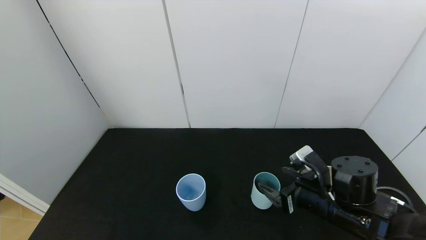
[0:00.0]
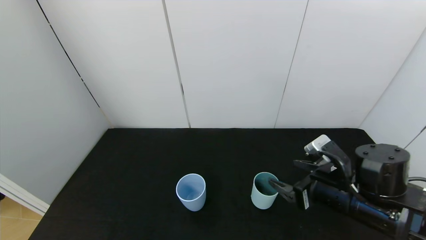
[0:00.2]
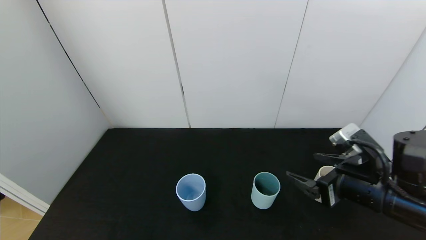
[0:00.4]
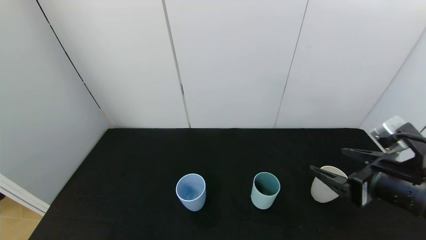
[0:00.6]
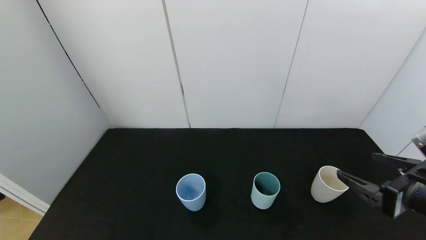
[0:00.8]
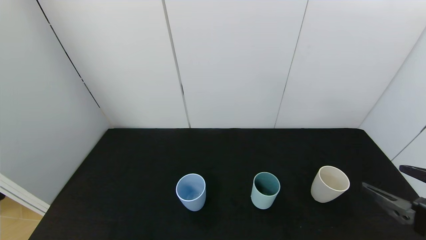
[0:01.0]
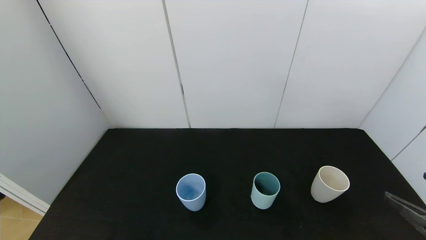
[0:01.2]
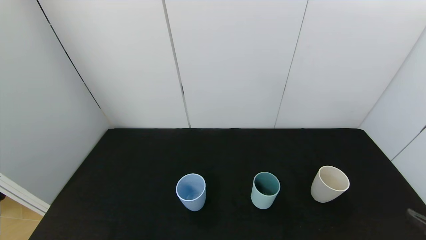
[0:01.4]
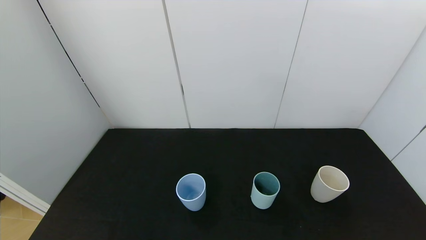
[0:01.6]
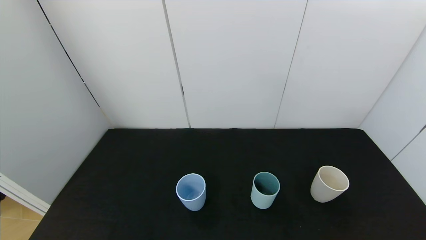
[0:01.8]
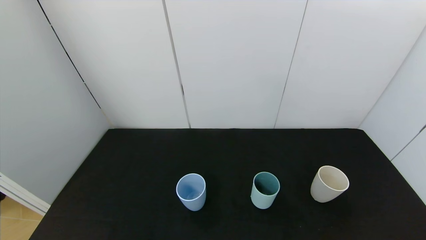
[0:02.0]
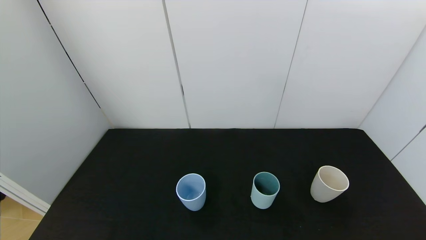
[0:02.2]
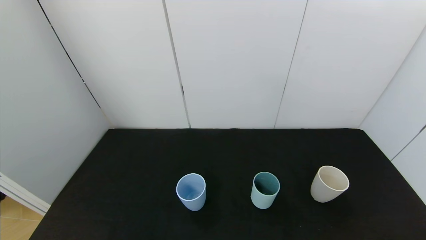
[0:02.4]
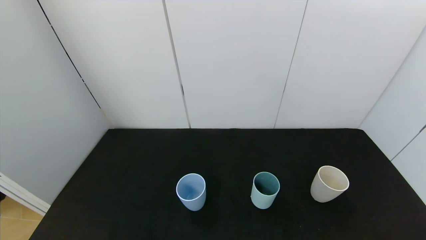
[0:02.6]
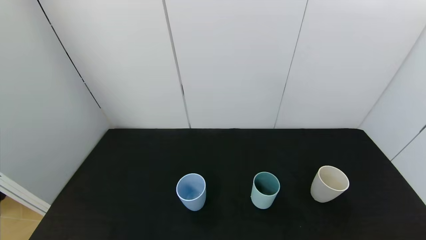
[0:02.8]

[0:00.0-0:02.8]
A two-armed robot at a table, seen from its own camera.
Task of the whole recording: use the gripper to pour the water into the other two cups on black table.
0:00.0 to 0:01.4: The right gripper moves backward, to the right and upward, approximately 25 cm.

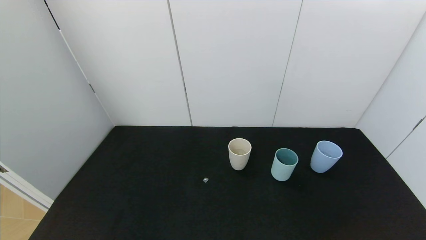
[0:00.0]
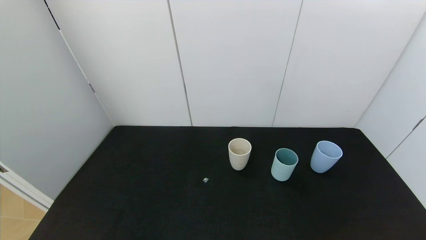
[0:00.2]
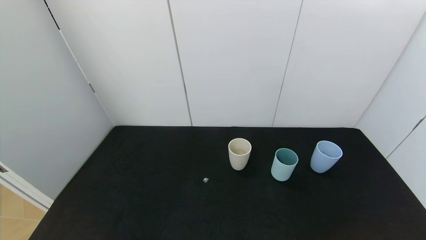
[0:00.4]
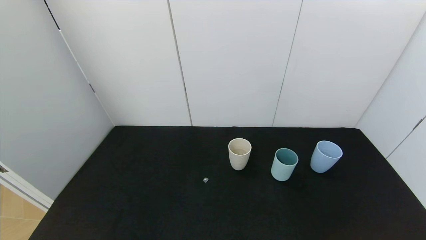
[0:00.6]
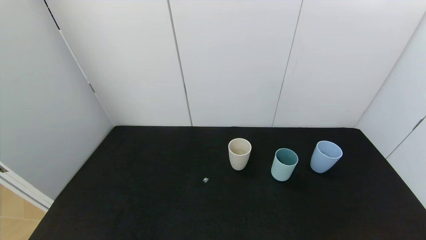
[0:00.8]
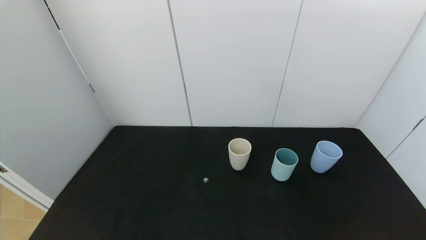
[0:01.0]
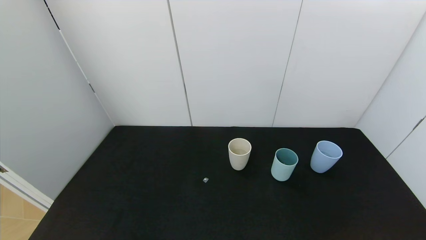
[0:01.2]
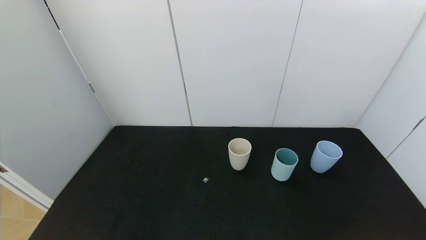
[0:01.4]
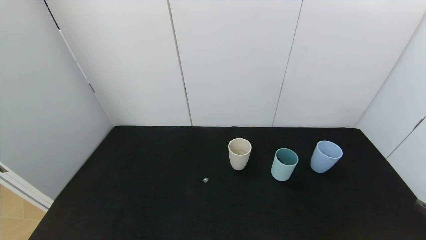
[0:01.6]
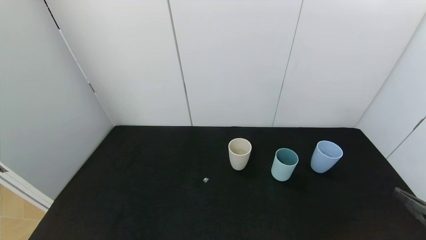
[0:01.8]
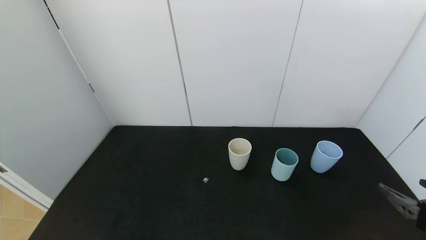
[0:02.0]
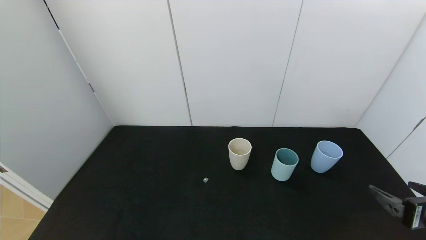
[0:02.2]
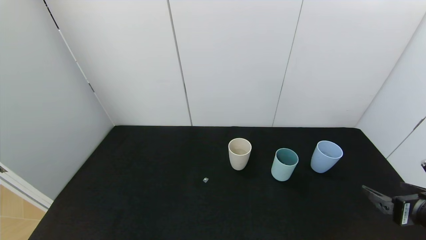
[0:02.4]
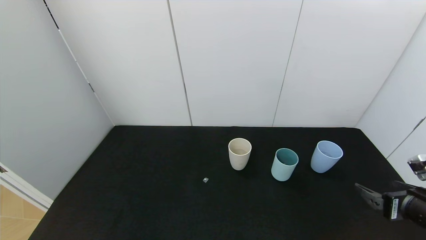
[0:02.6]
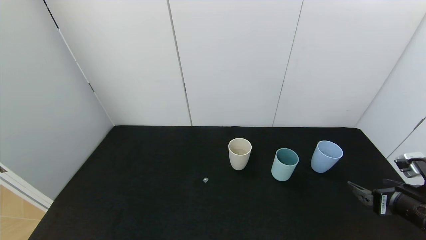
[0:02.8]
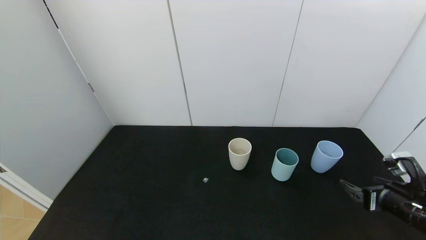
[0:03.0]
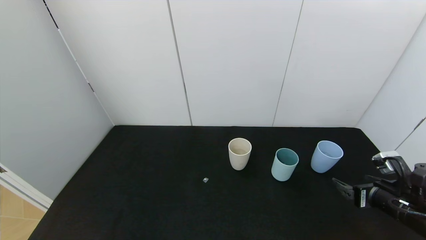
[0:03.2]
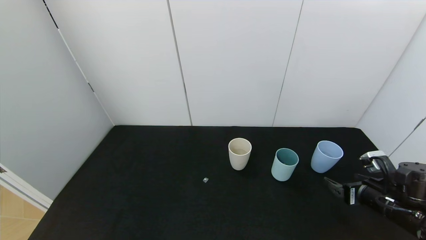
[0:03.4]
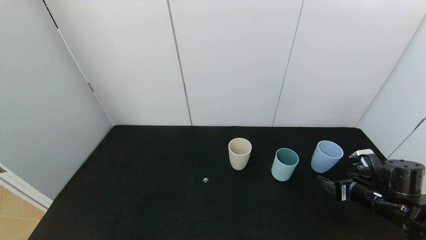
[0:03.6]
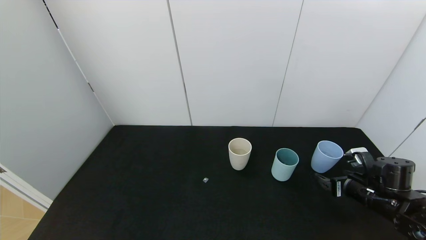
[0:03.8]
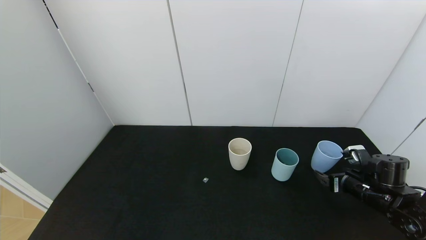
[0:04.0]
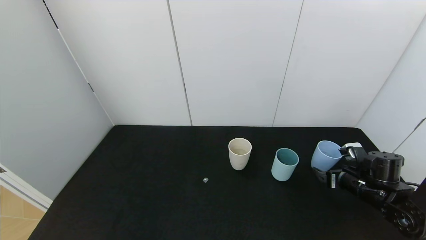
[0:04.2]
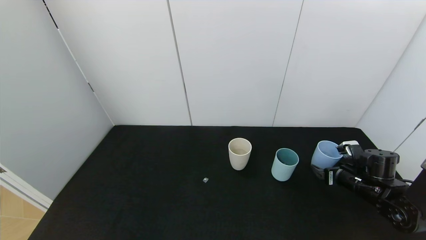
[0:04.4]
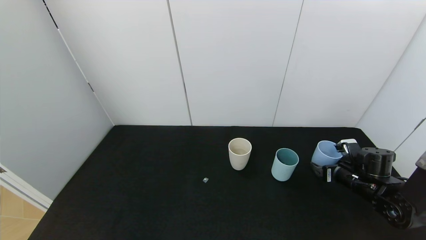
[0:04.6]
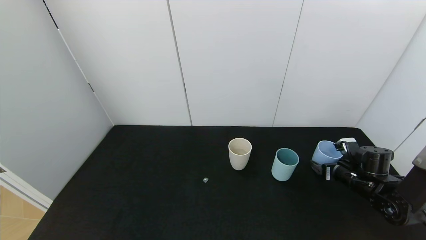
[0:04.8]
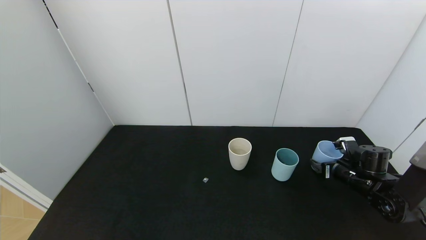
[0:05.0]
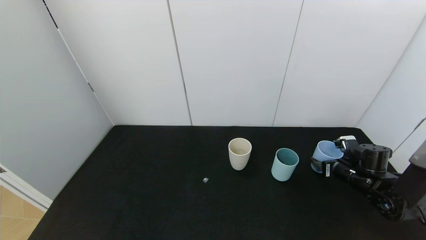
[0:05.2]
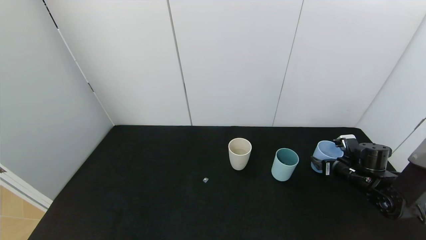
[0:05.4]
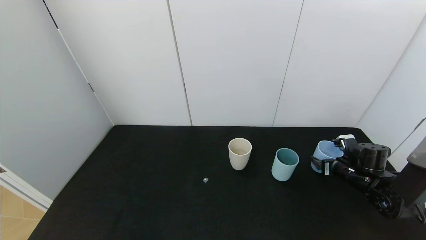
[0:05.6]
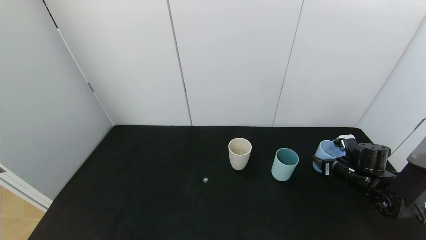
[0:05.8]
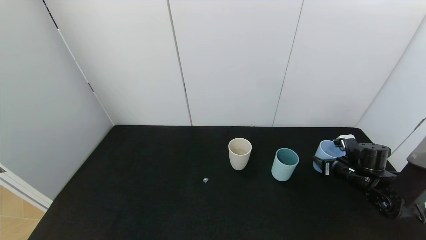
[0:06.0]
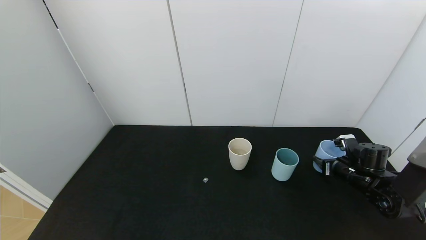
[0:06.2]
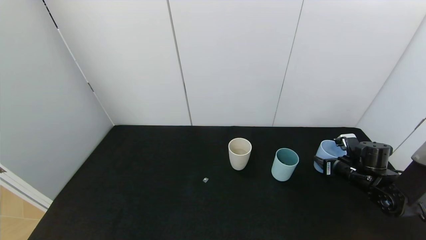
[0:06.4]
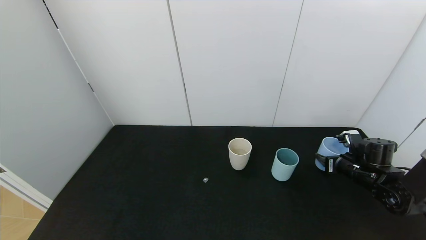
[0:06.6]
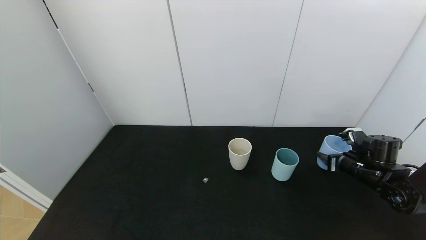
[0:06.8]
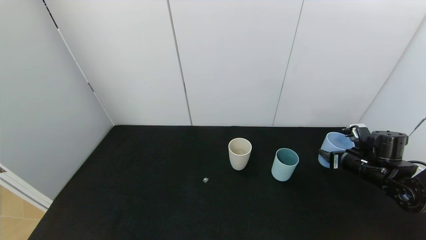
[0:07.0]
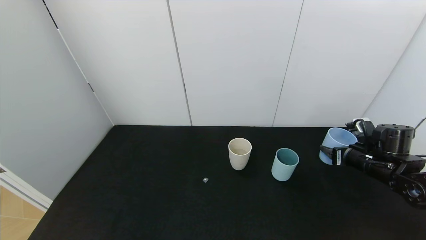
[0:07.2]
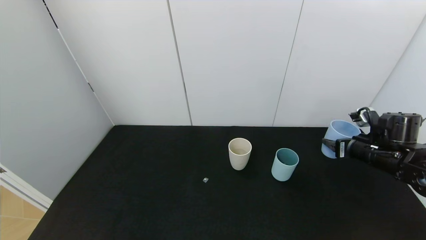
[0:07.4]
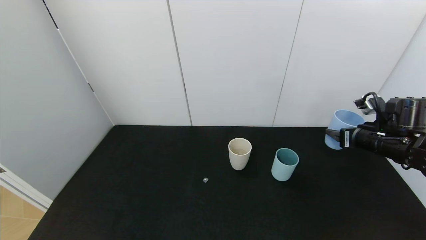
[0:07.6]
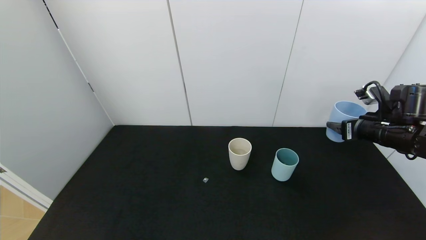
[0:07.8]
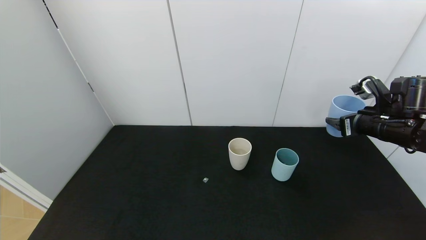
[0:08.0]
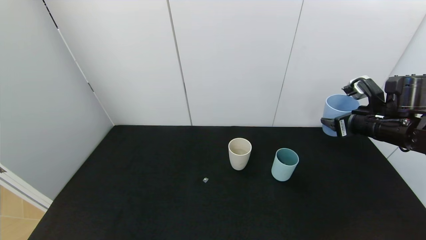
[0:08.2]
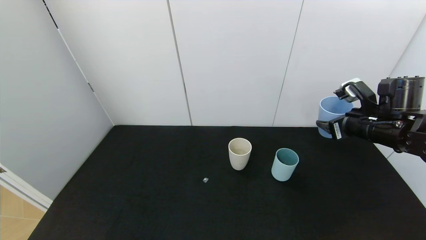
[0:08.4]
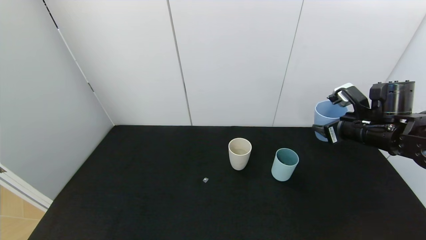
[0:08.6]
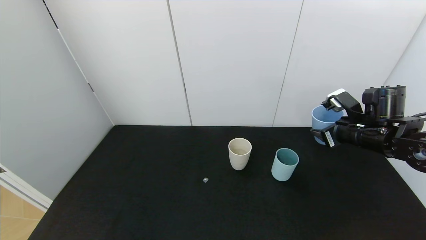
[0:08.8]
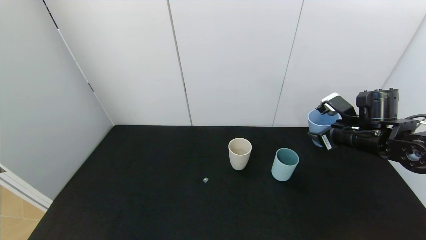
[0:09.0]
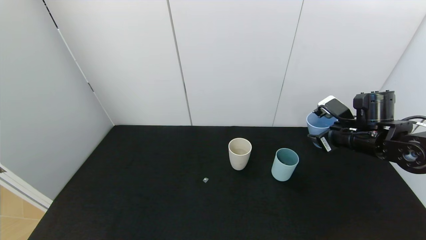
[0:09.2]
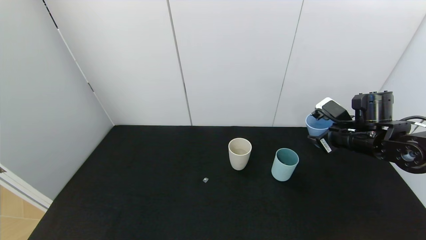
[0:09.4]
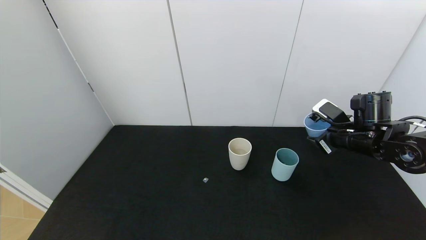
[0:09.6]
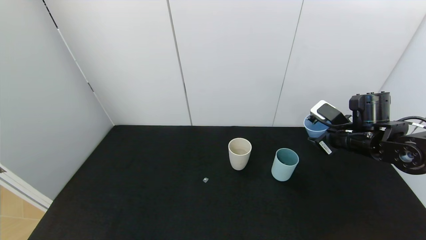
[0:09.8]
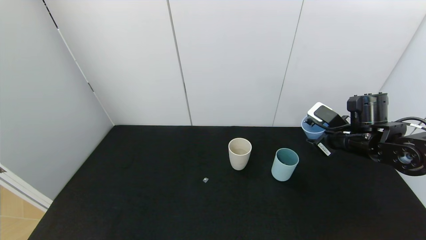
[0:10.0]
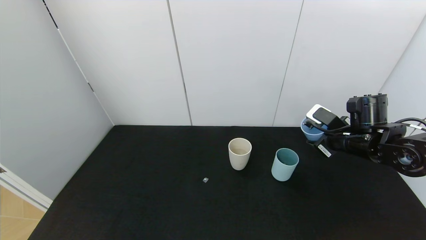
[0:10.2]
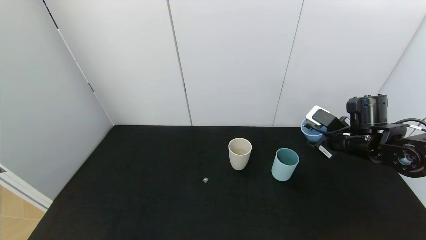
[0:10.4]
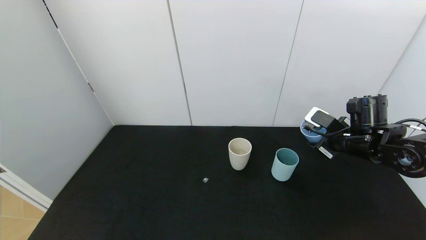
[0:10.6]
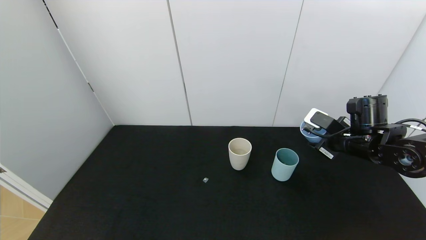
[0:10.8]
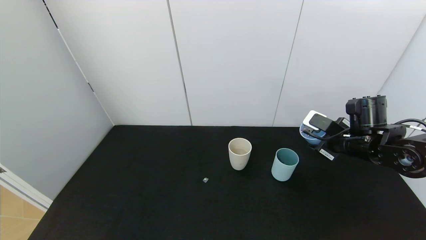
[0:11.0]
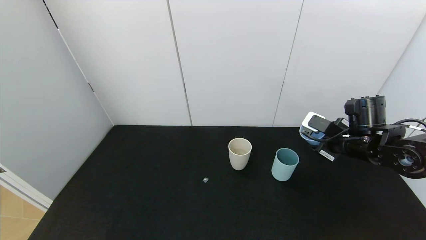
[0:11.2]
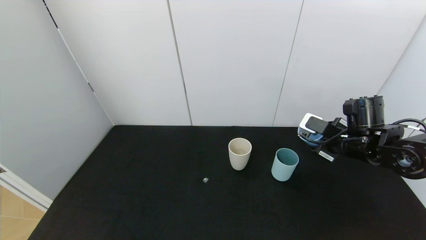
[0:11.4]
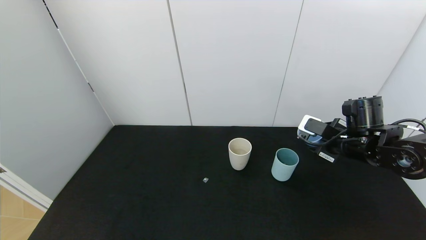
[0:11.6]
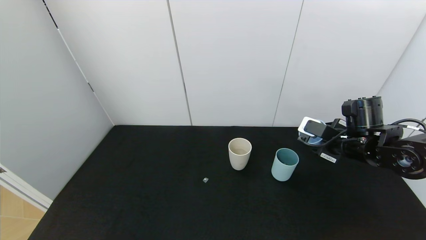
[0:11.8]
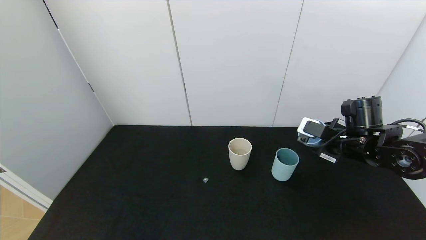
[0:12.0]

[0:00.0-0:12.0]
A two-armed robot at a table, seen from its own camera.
Task of the whole recording: use the gripper to pour the water into the other two cups on black table.
Step, 0:00.0 to 0:05.8: Grasp the blue cup with the right gripper.
0:01.6 to 0:03.0: The right gripper travels forward and downward by roughly 15 cm.
0:03.0 to 0:04.4: The right gripper shifts some 10 cm forward.
0:04.4 to 0:06.0: The right gripper closes its fingers.
0:06.0 to 0:07.6: The right gripper is displaced upward by some 15 cm.
0:07.6 to 0:09.0: The right gripper shifts some 5 cm to the left.
0:09.0 to 0:10.4: There are only small adjustments of the grippers.
0:10.4 to 0:12.0: There are only small adjustments of the grippers.

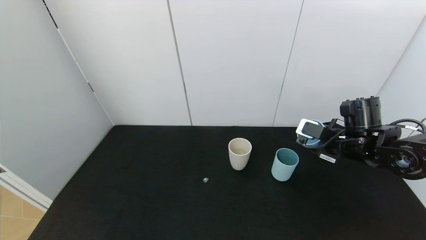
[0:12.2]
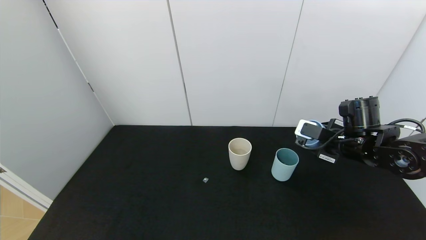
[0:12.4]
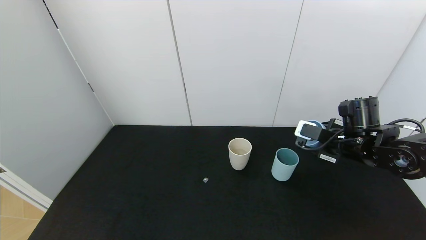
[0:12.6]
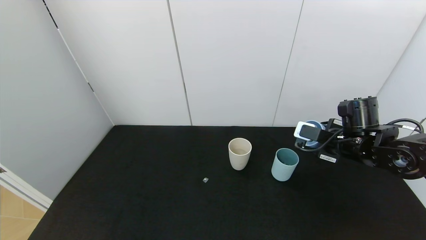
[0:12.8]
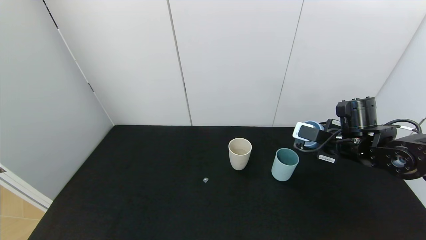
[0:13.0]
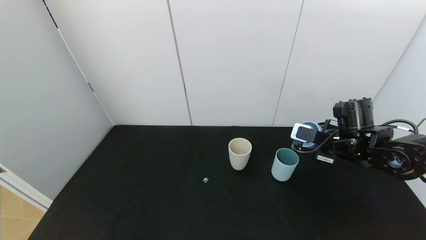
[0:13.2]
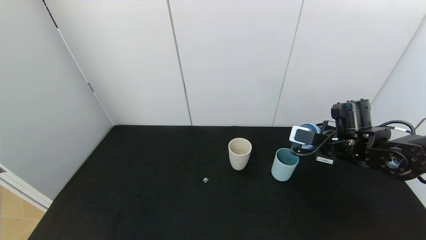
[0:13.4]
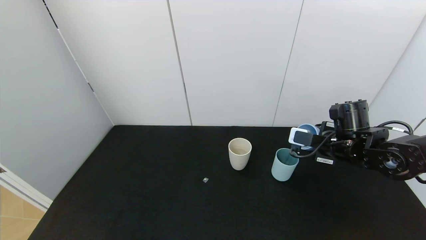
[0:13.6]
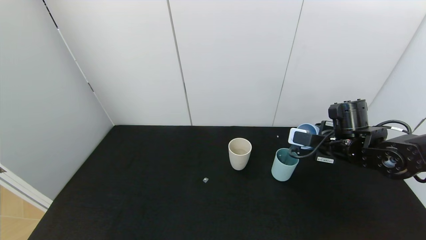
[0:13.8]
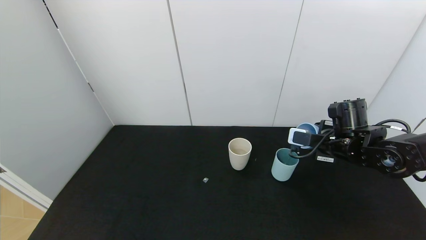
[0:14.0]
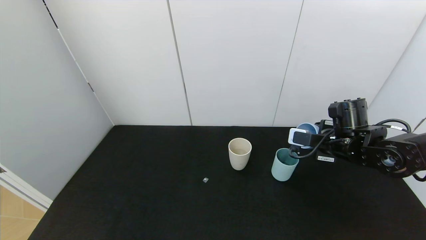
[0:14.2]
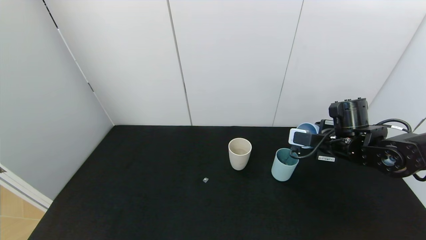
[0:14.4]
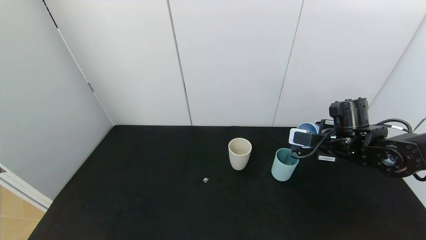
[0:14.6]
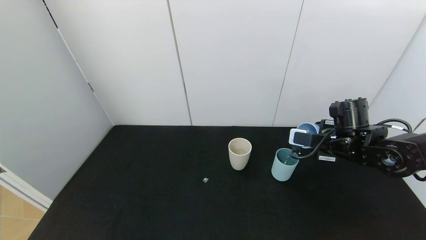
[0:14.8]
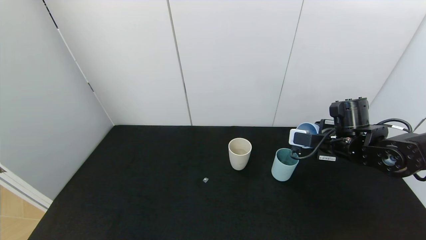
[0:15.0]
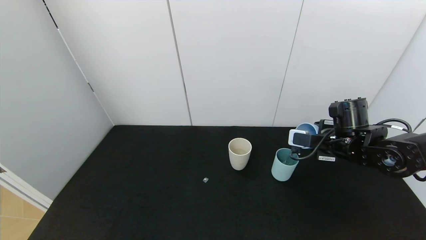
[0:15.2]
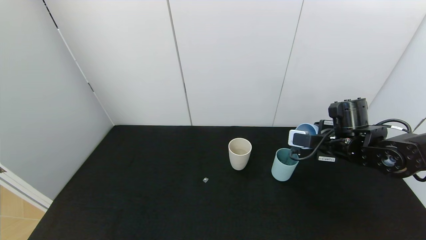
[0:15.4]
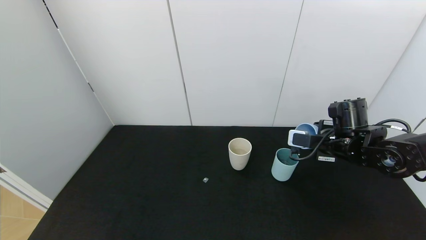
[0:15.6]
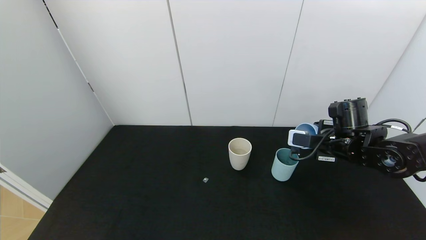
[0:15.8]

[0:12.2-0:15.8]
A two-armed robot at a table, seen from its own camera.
Task of the whole recording: use the gripper to pour the water into the other two cups on black table.
0:12.2 to 0:14.0: The grippers make only small movements.
0:14.0 to 0:15.8: The two grippers keep their place.
